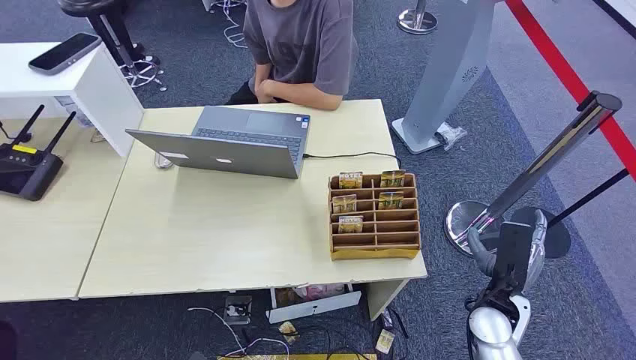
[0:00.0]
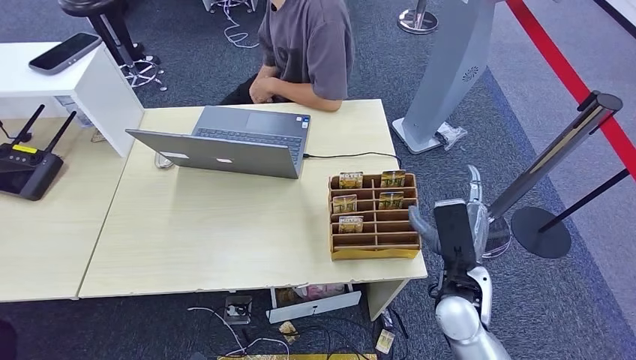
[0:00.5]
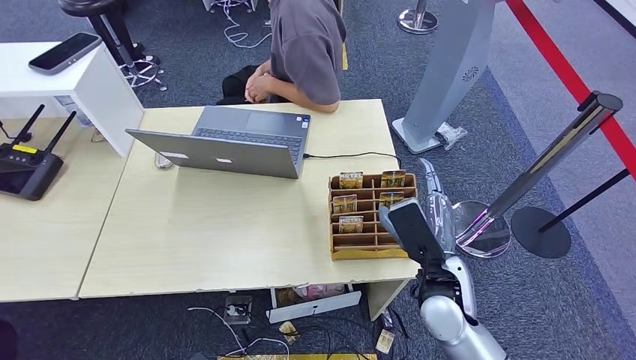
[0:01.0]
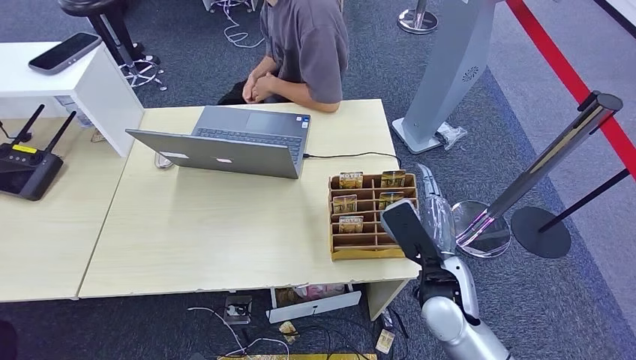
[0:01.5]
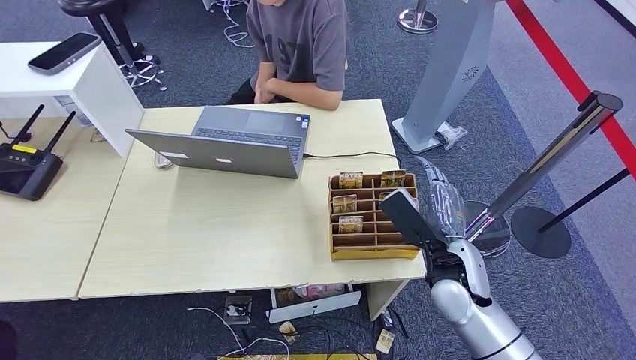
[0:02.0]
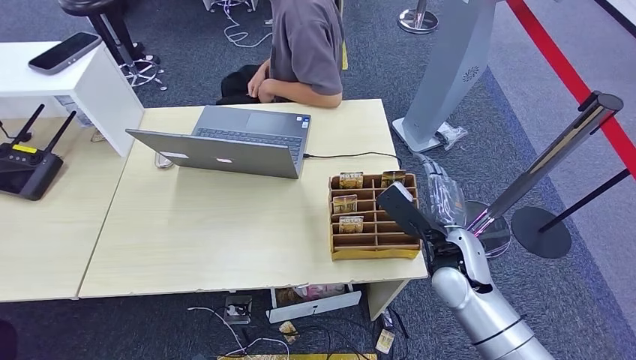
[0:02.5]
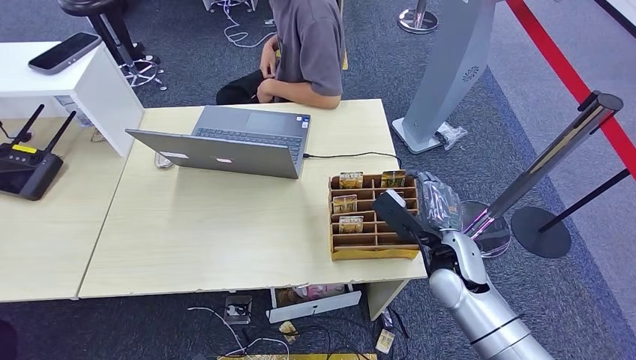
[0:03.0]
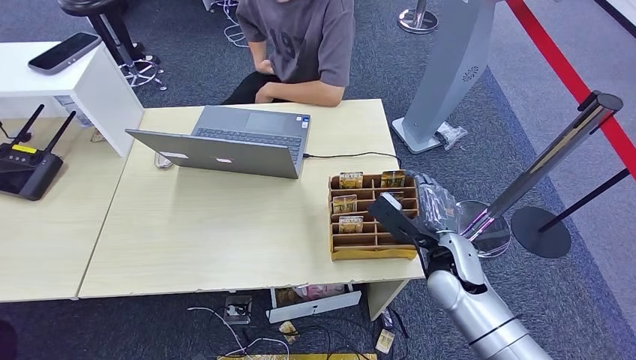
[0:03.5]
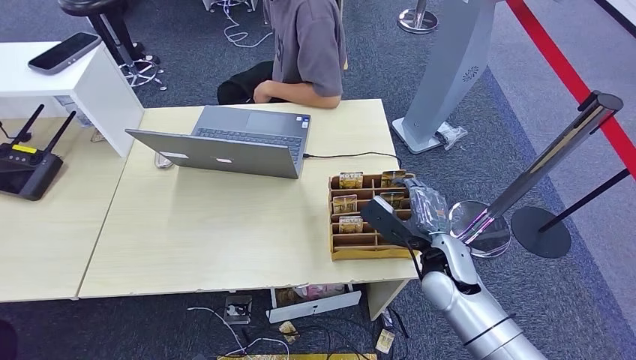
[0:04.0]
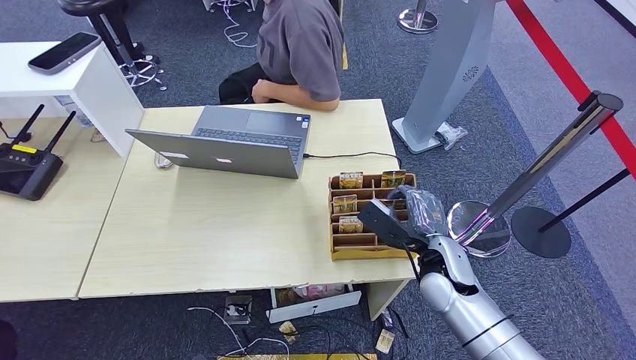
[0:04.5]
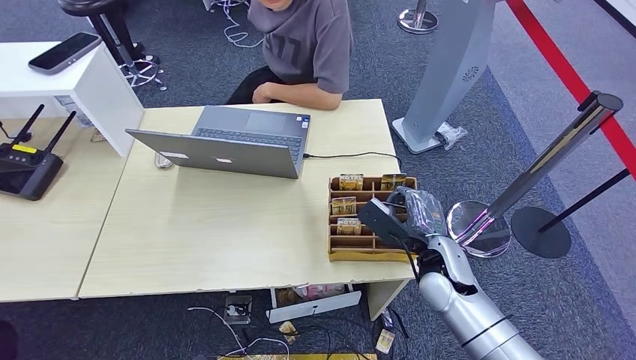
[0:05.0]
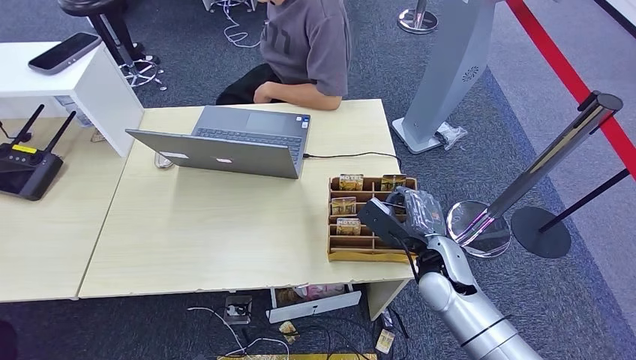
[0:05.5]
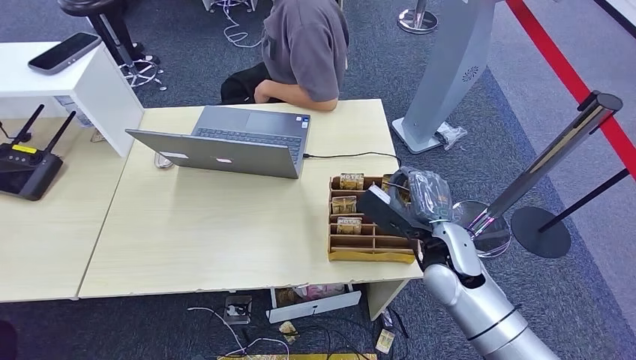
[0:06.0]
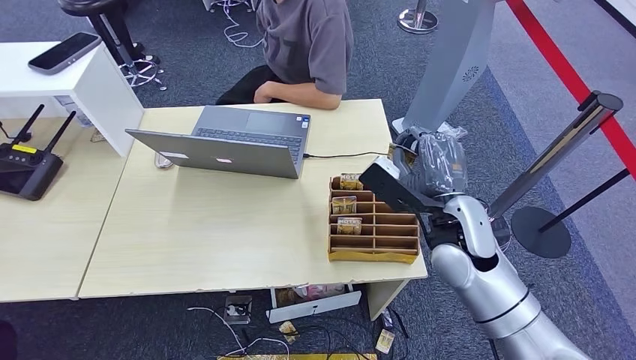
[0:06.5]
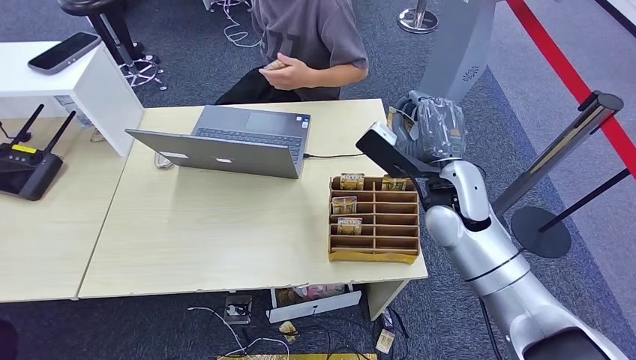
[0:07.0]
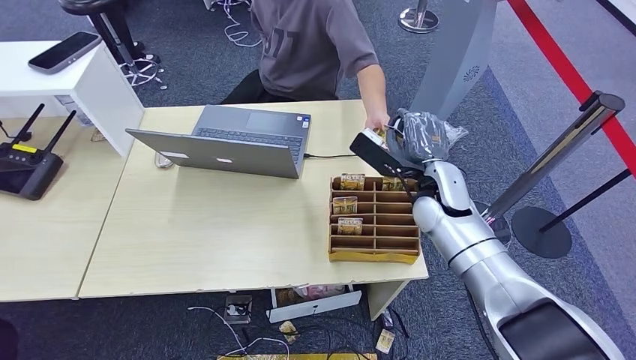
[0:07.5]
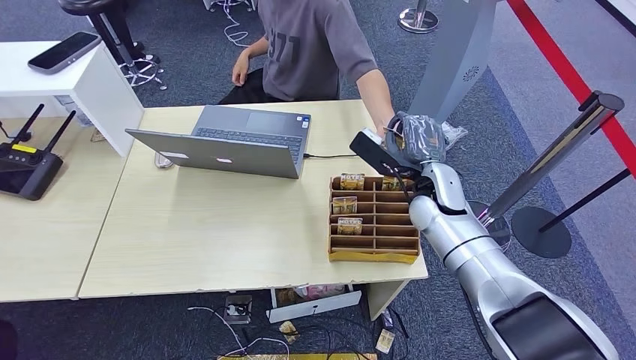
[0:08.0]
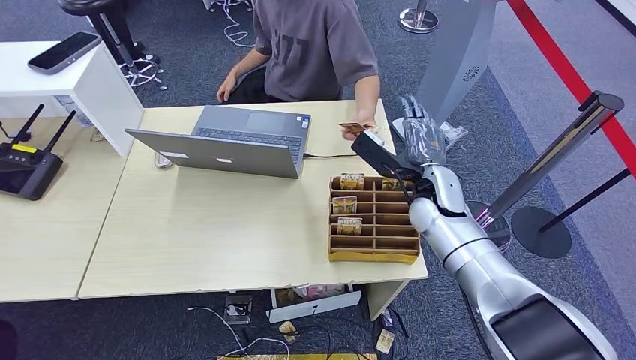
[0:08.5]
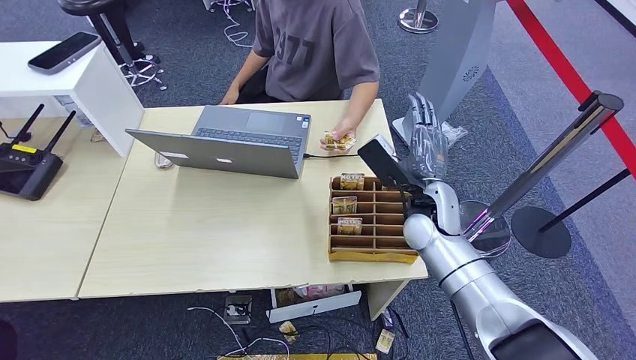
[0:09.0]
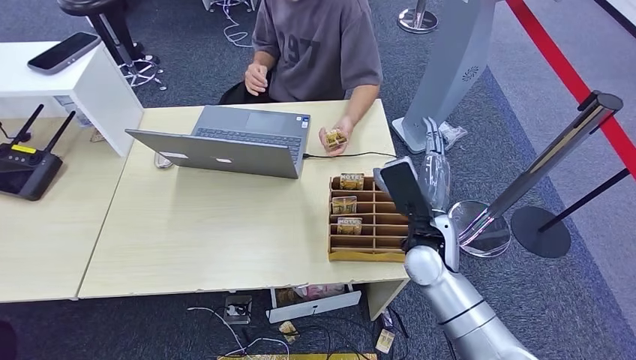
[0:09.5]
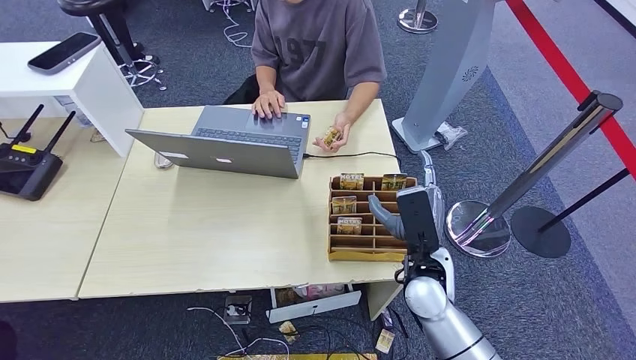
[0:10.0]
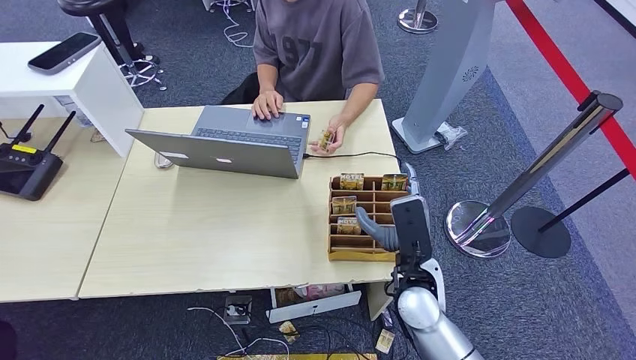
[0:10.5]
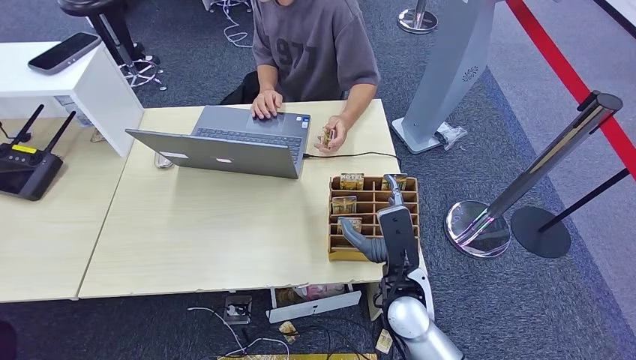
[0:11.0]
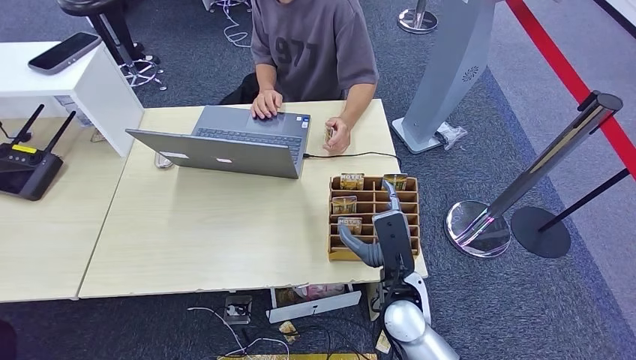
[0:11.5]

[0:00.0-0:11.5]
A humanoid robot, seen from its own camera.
Step, 0:00.0 to 0:06.0: Pick up the key card from the card box.
Step, 0:07.0 to 0:11.5: Hand the key card to the target.
0:02.0 to 0:06.0: There are only small adjustments of the hands.
0:06.0 to 0:07.5: The right hand heads forward, covering about 10 cm.
0:07.5 to 0:09.5: The right hand shifts roughly 10 cm backward.
0:09.5 to 0:11.5: The right hand shifts about 10 cm backward and downward.

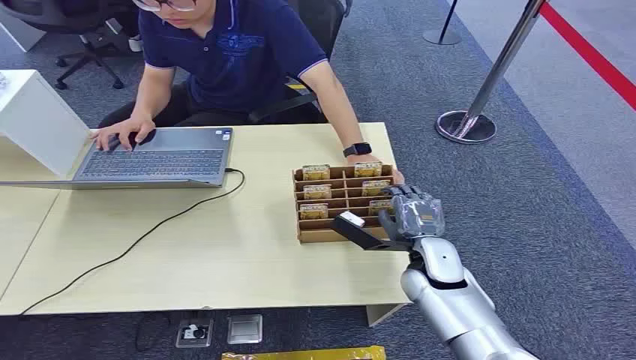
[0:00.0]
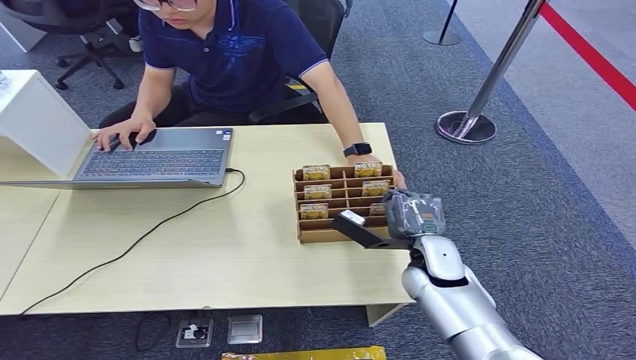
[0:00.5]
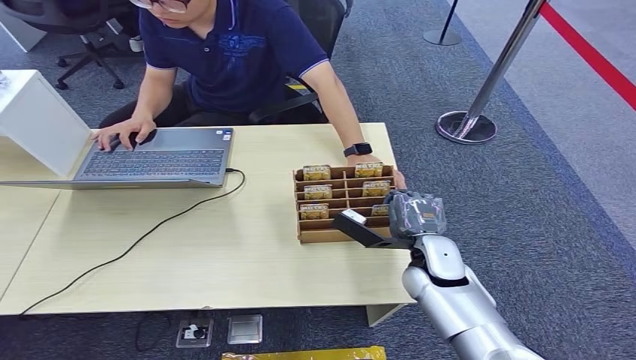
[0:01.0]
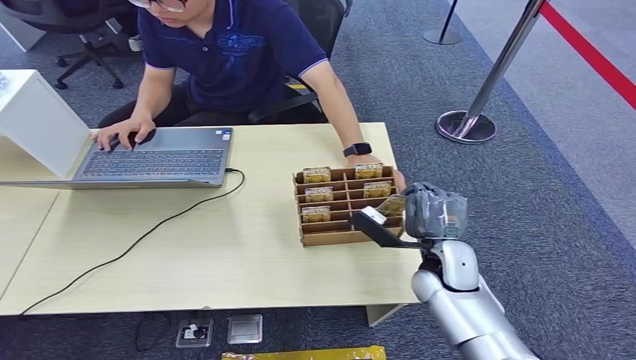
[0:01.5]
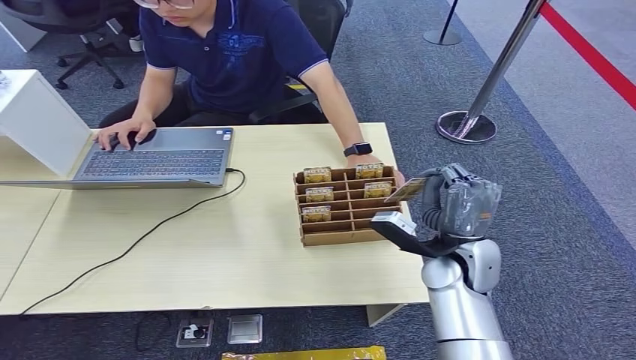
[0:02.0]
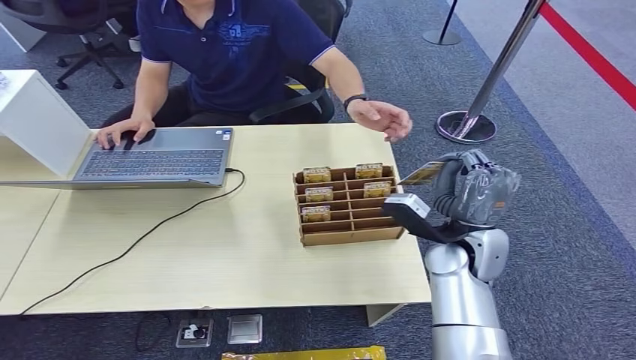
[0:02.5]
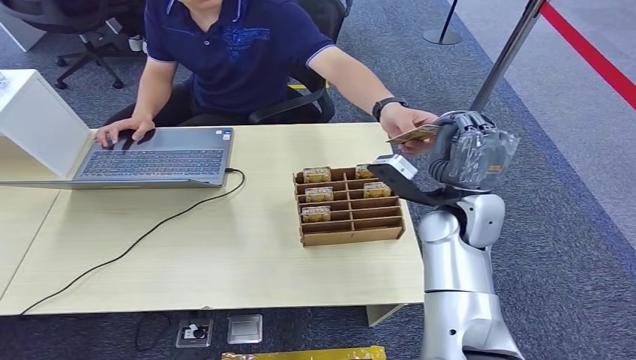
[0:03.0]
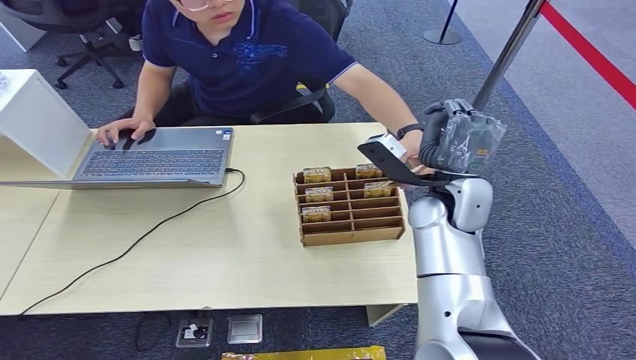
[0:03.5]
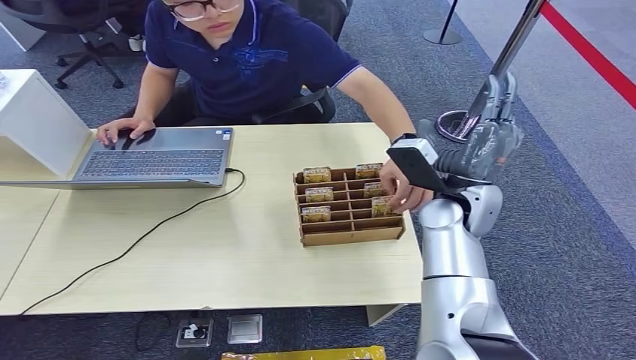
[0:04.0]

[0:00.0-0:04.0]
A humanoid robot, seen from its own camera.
Step, 0:00.0 to 0:02.0: Pick up the key card from the card box.
Step, 0:02.5 to 0:04.0: Hand the key card to the target.
0:02.0 to 0:04.0: The right hand travels forward and upward by about 10 cm.
